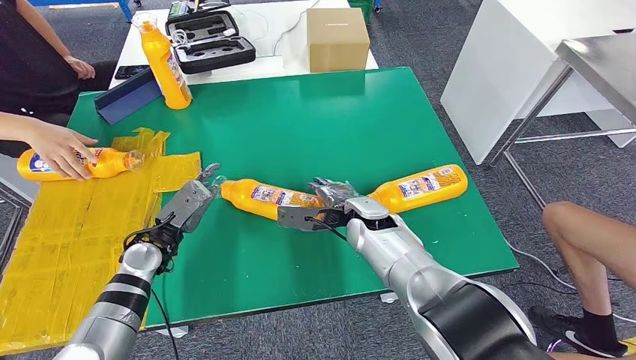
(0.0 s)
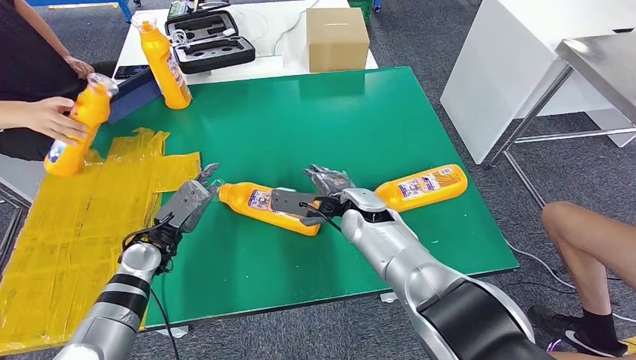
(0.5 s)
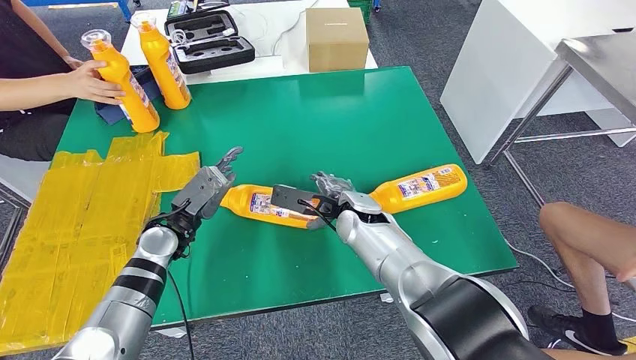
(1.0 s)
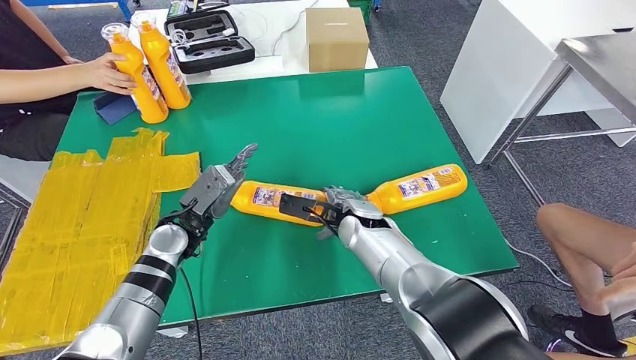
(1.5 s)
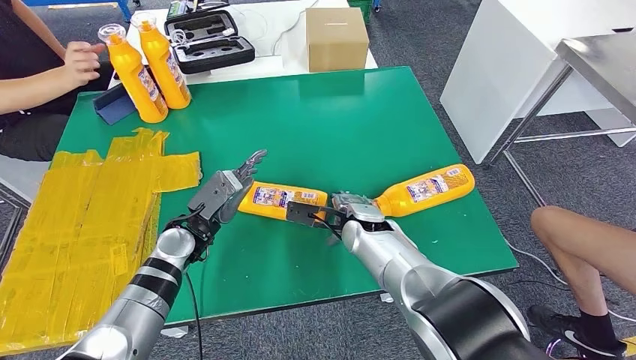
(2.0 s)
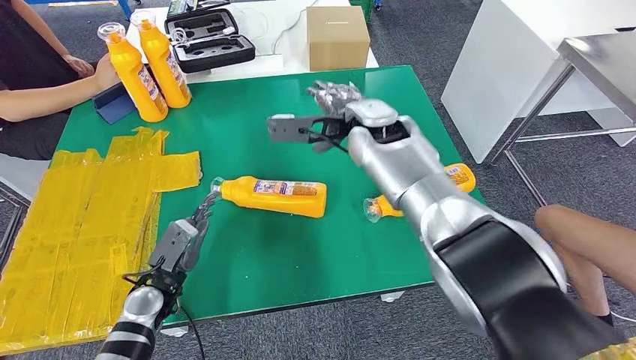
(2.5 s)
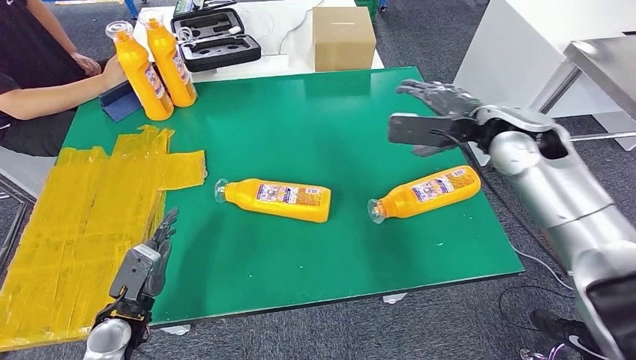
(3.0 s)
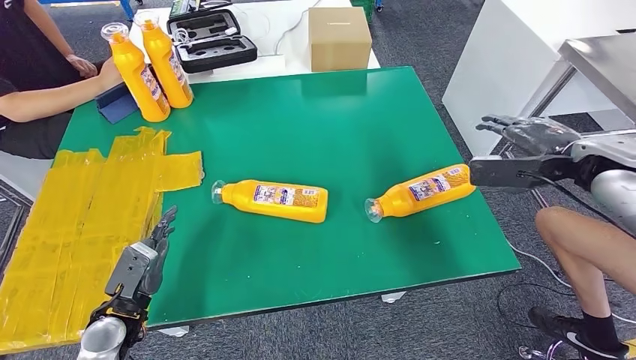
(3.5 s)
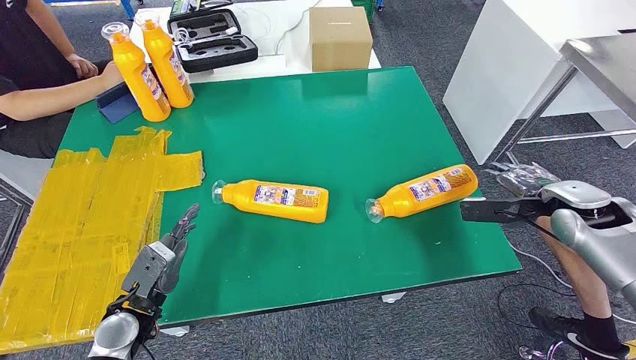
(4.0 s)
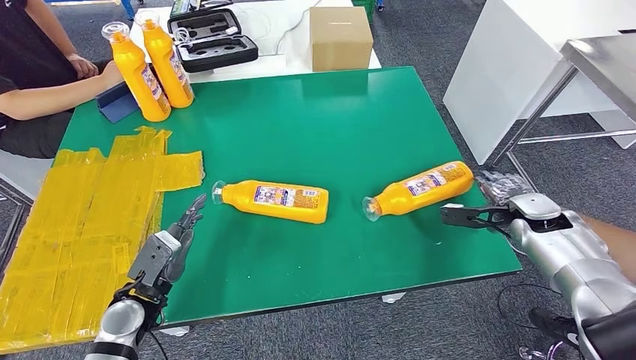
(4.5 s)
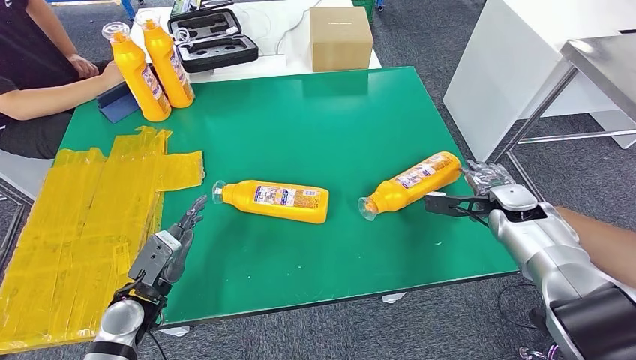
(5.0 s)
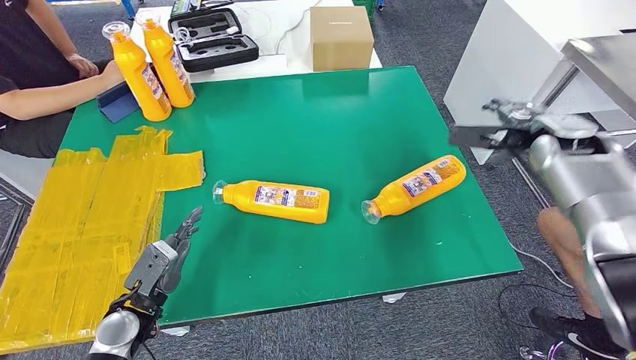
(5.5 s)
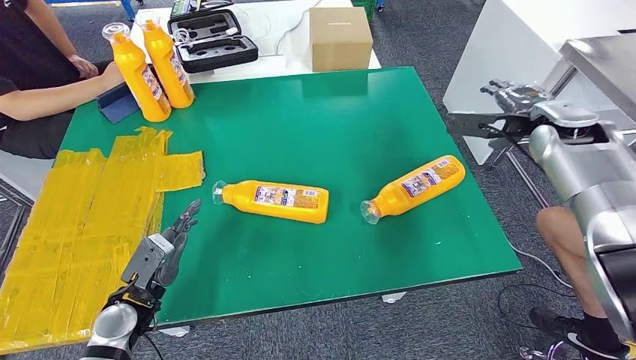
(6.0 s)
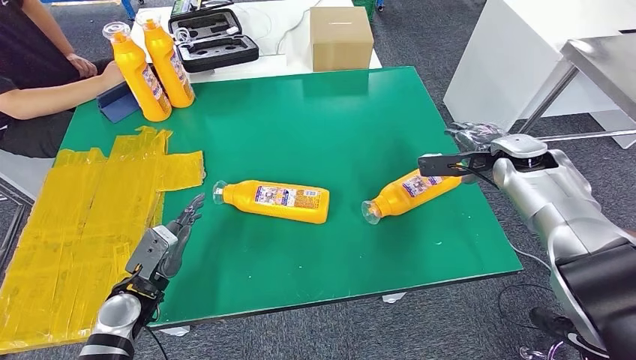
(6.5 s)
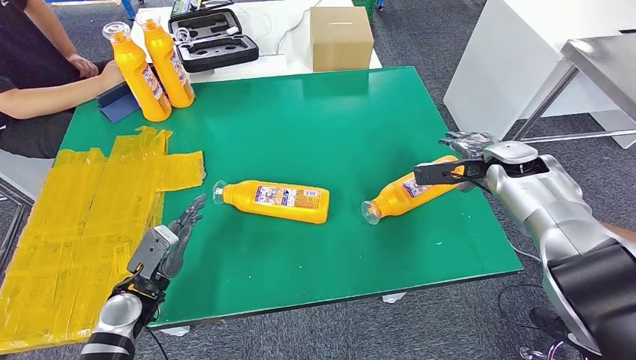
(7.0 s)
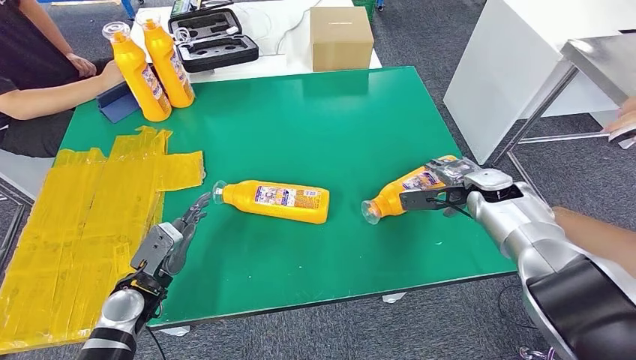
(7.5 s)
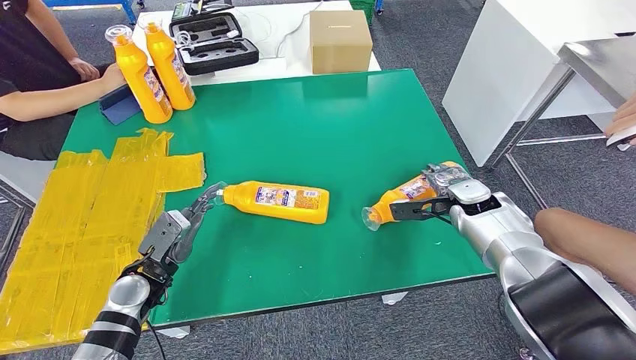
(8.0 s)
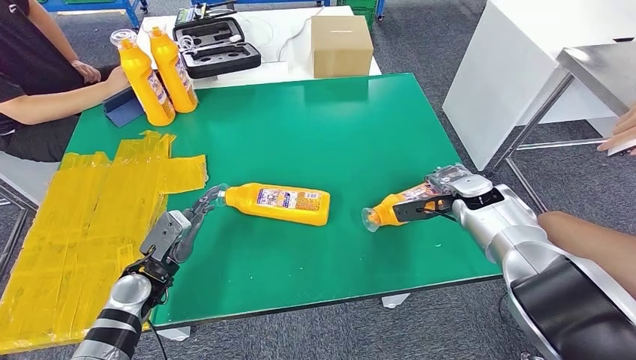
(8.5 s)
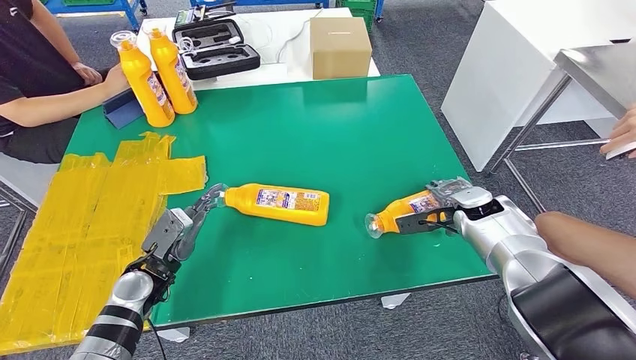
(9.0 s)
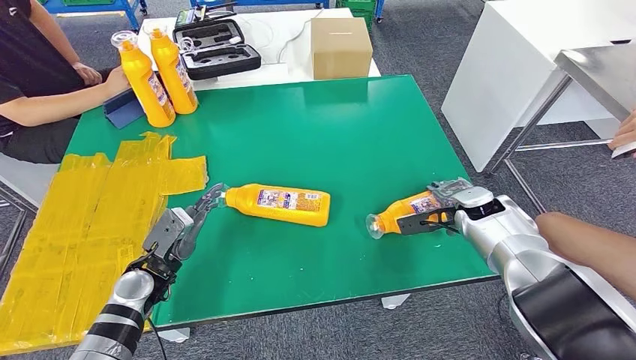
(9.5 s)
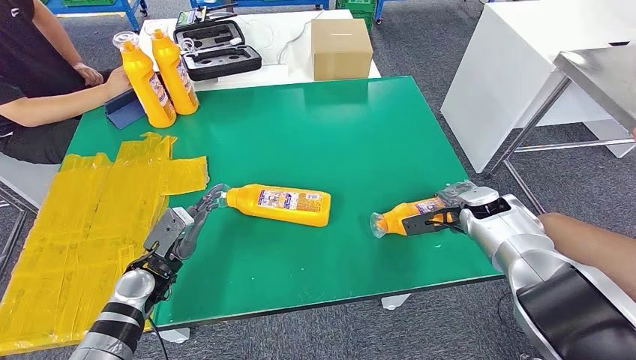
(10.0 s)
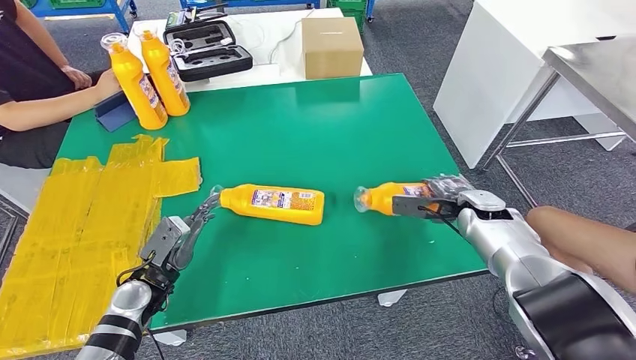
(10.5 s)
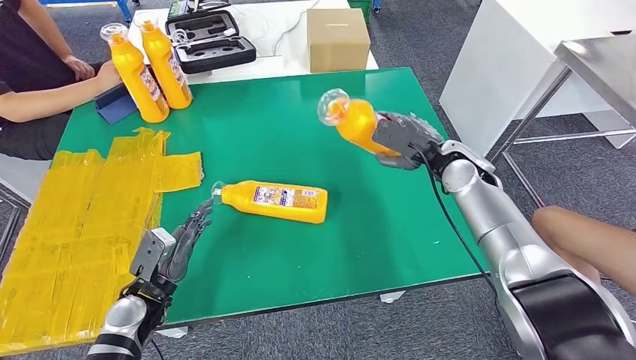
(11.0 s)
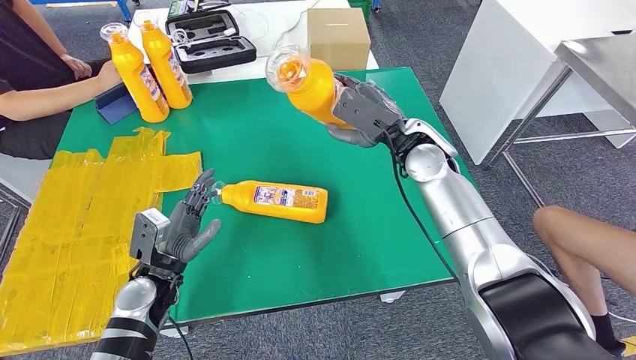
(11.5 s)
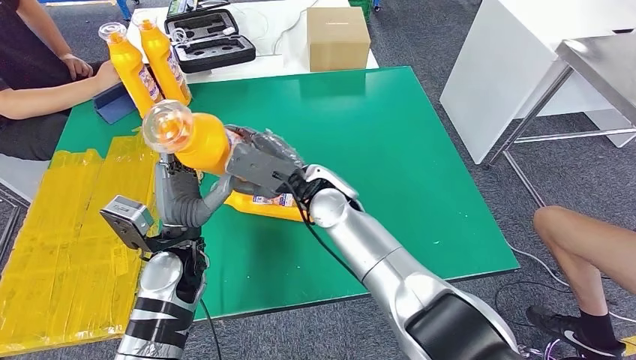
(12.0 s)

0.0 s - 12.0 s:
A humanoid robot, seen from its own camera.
Step, 0.0 s - 11.0 s: Pick up the bottle from the table.
0.0 s - 2.0 s: The left hand travels to the right by about 5 cm.
4.0 s - 6.0 s: The right hand travels forward and upward by some 15 cm.

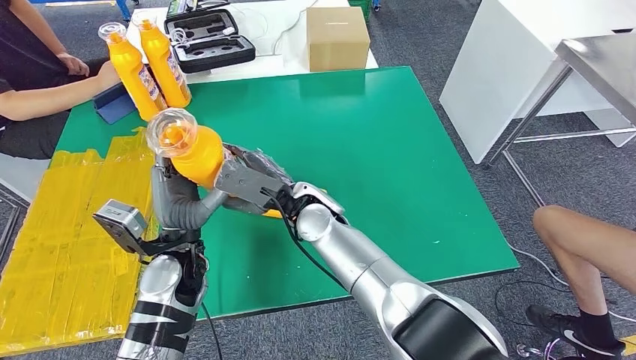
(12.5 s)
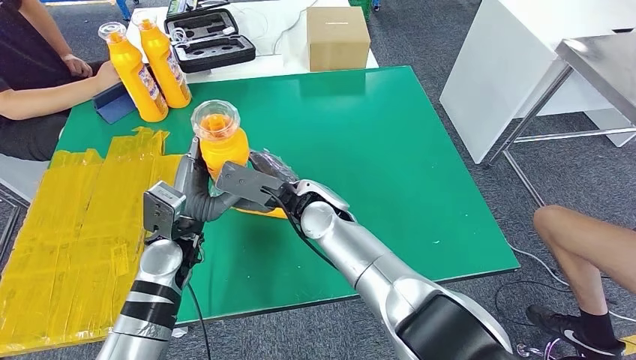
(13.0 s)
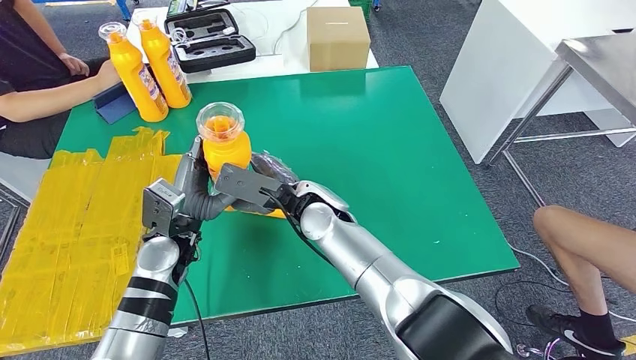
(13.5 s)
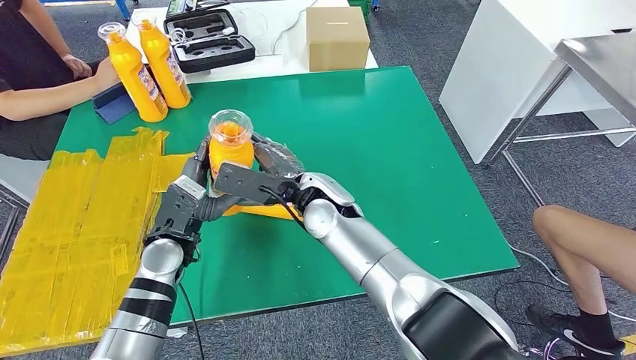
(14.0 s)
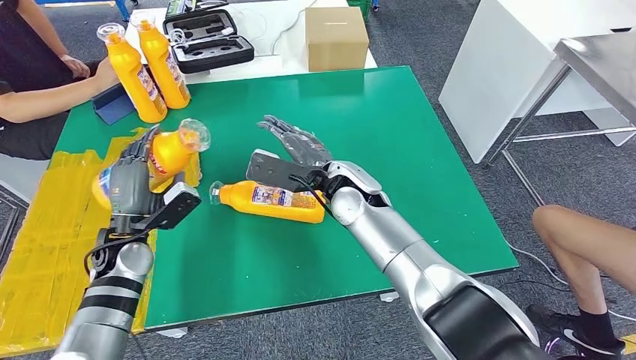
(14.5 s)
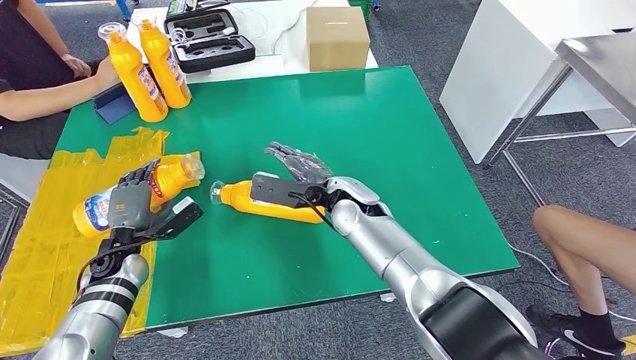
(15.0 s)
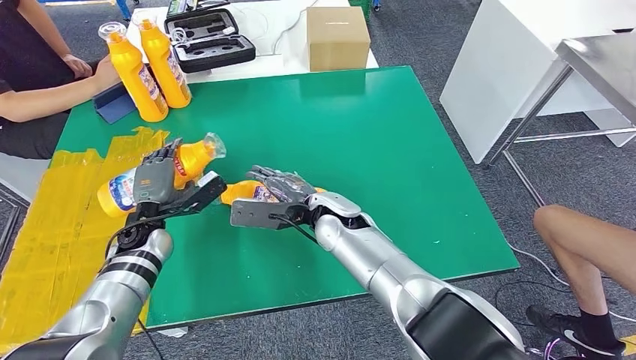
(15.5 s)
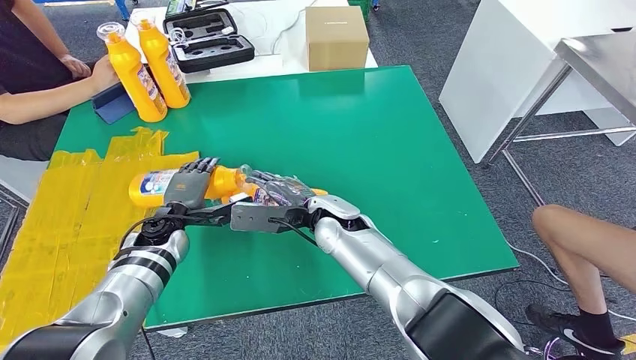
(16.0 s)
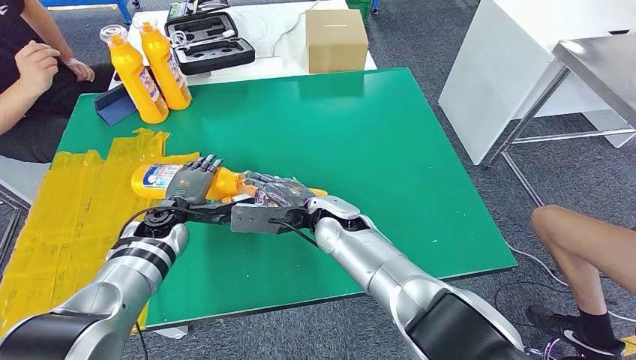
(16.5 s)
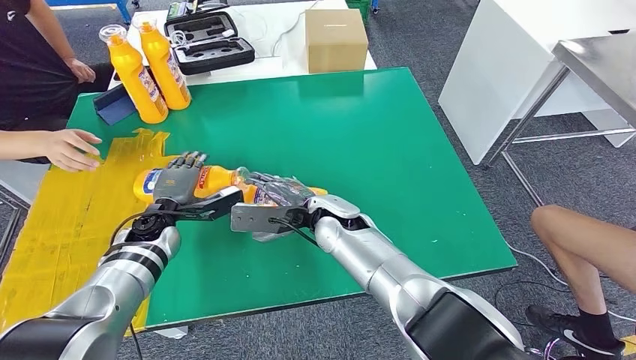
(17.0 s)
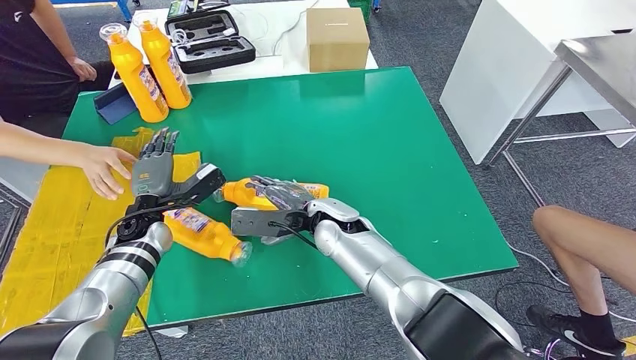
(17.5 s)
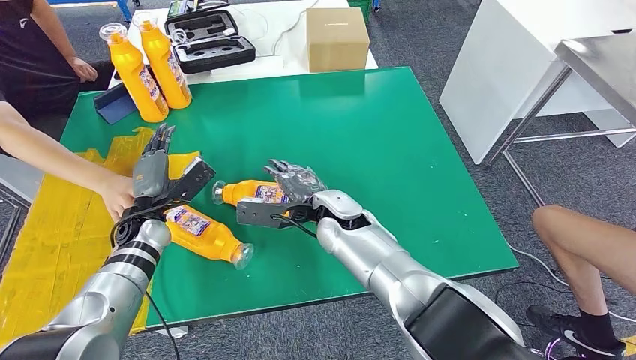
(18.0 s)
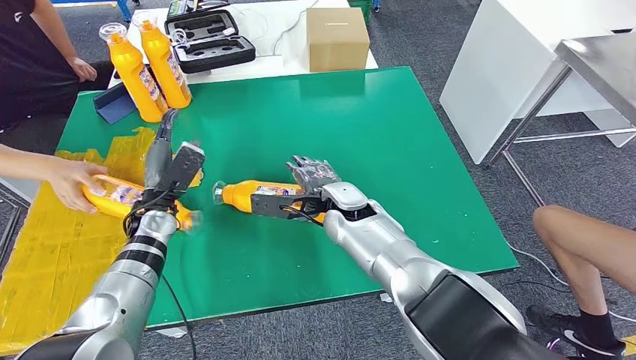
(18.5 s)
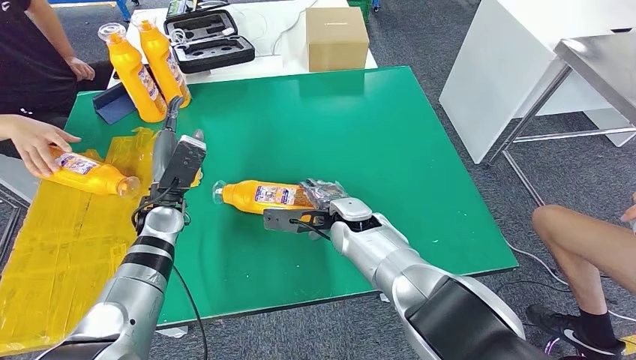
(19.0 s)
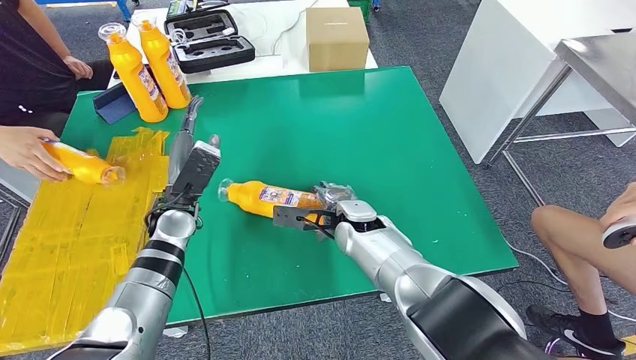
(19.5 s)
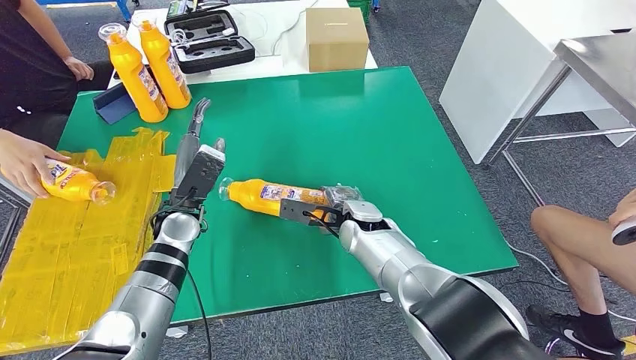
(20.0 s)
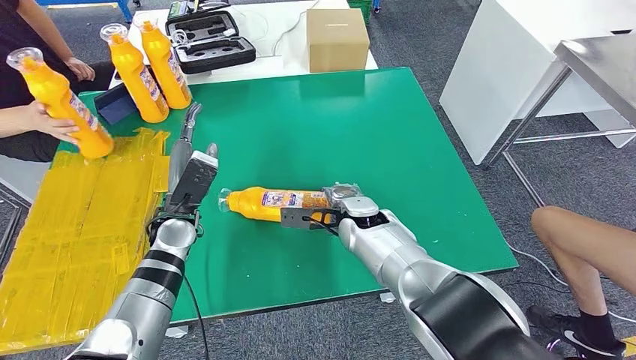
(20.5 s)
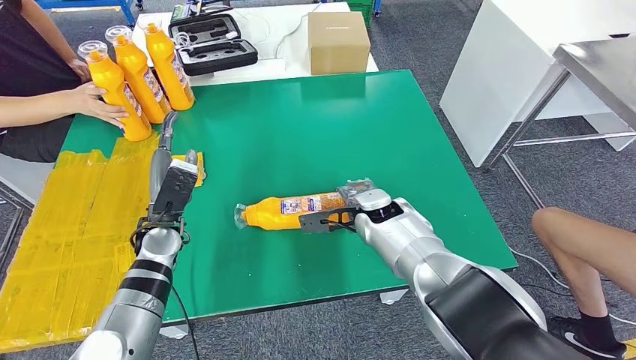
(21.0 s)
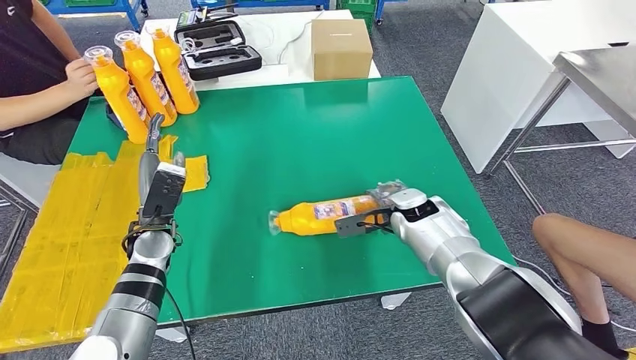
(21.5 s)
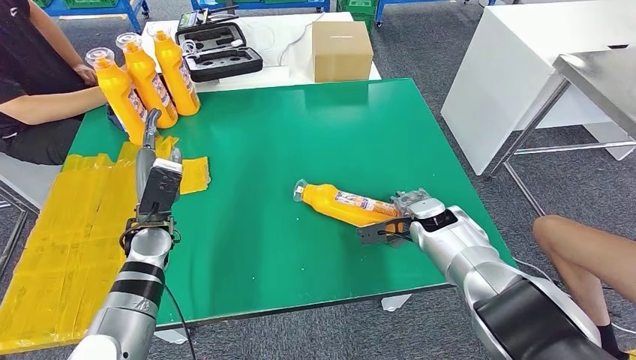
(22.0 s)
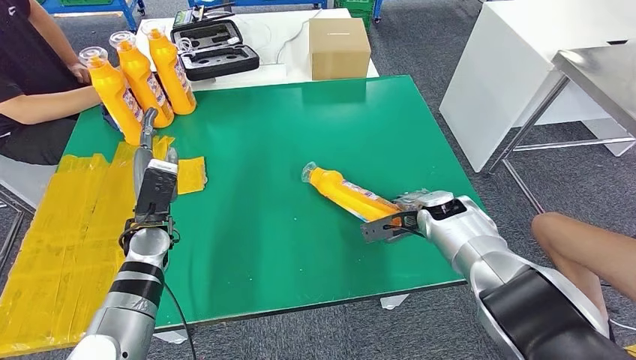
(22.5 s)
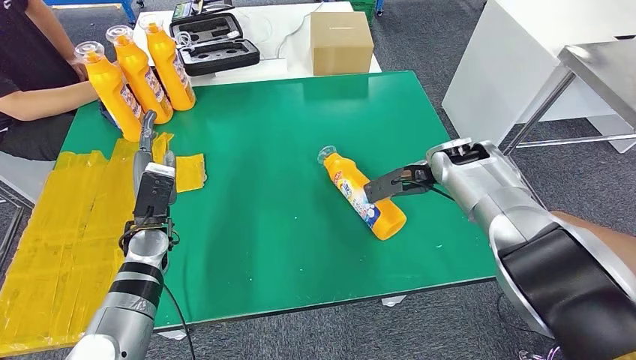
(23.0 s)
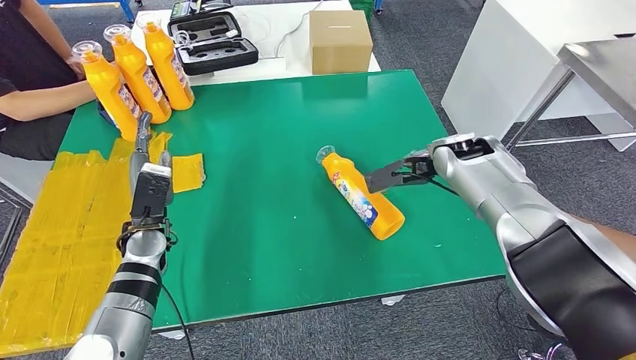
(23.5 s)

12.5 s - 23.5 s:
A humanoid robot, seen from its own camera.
Step, 12.5 s - 17.5 s: Flip the bottle to face forward.
14.5 s - 16.0 s: The right hand goes approximately 5 cm downward. Meanwhile the left hand ends up some 5 cm from where it was.
18.0 s - 20.0 s: The left hand heads to the right, covering about 10 cm, while the right hand shifts approximately 5 cm to the right.
